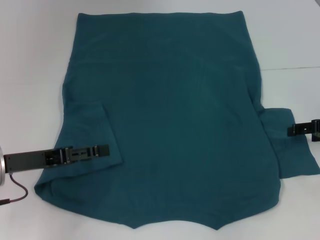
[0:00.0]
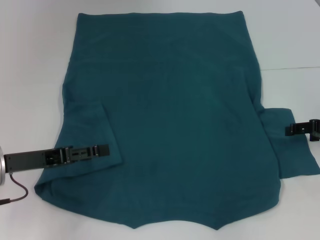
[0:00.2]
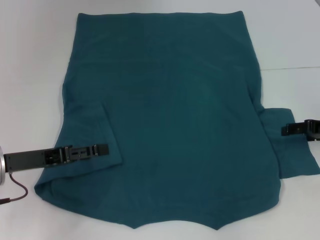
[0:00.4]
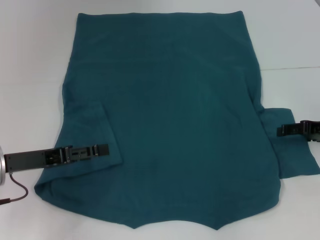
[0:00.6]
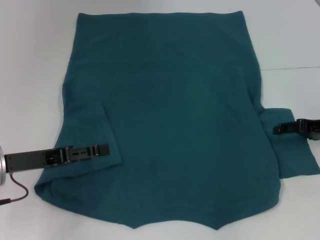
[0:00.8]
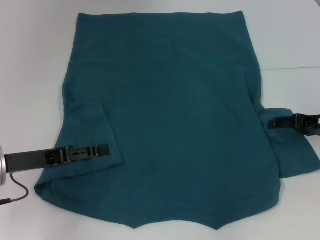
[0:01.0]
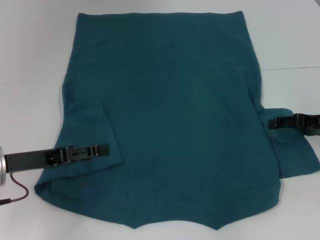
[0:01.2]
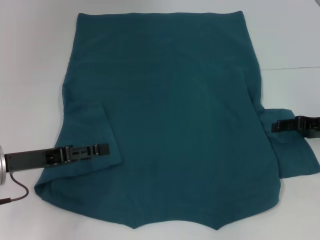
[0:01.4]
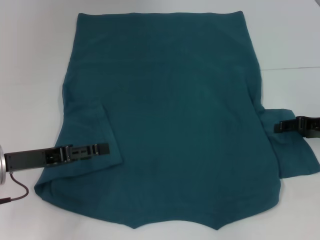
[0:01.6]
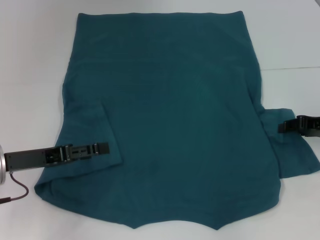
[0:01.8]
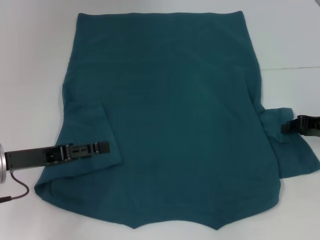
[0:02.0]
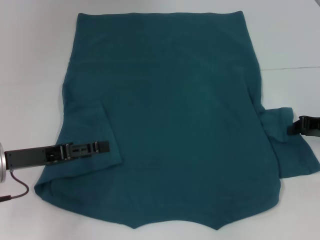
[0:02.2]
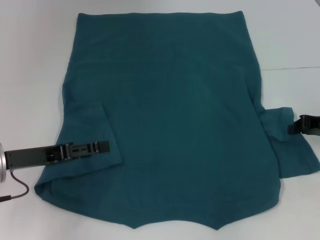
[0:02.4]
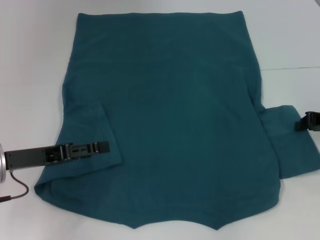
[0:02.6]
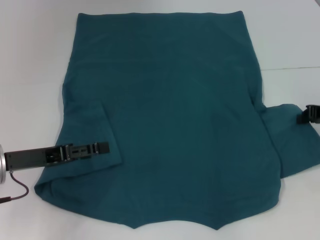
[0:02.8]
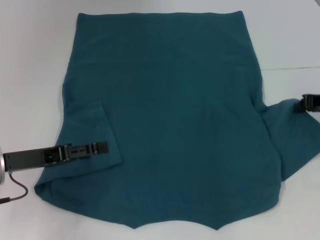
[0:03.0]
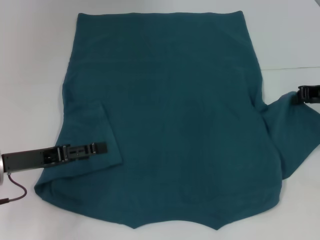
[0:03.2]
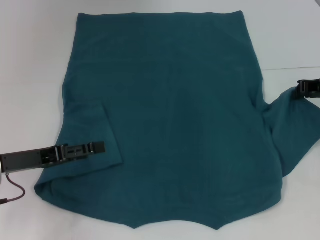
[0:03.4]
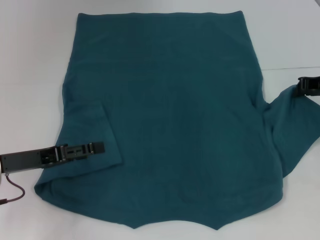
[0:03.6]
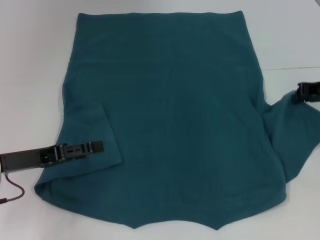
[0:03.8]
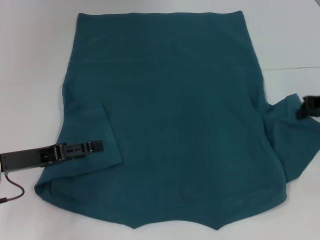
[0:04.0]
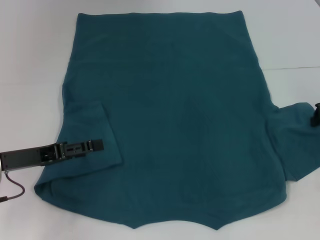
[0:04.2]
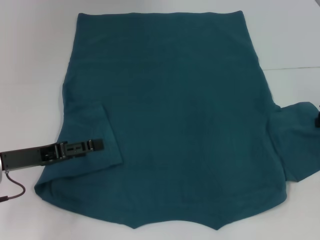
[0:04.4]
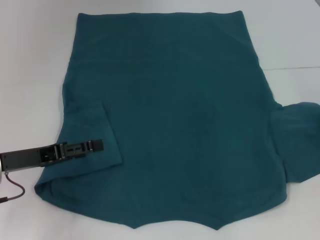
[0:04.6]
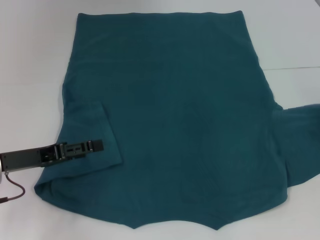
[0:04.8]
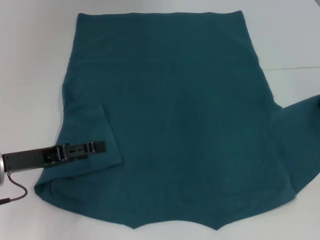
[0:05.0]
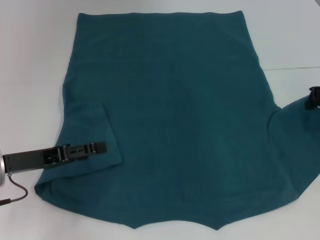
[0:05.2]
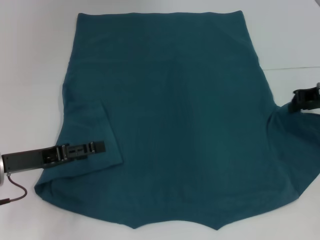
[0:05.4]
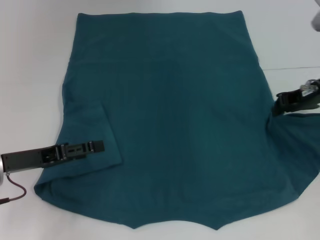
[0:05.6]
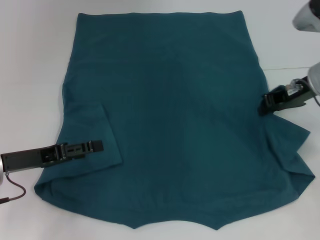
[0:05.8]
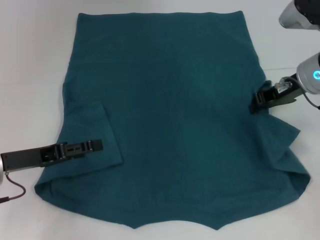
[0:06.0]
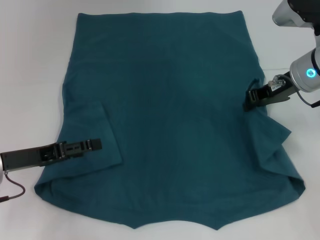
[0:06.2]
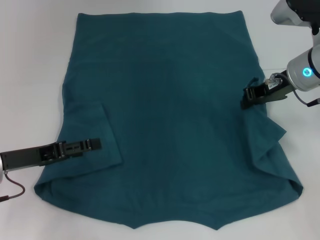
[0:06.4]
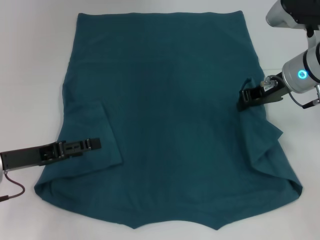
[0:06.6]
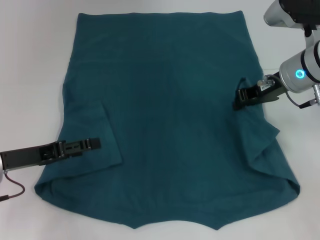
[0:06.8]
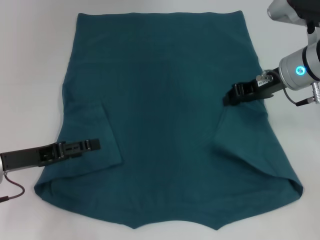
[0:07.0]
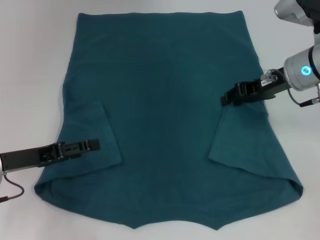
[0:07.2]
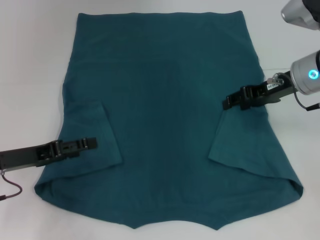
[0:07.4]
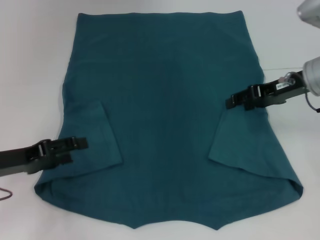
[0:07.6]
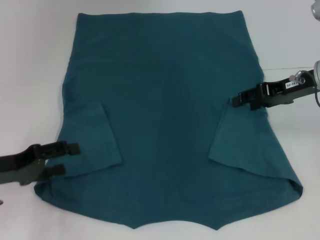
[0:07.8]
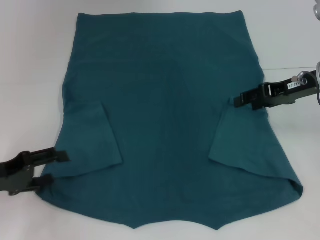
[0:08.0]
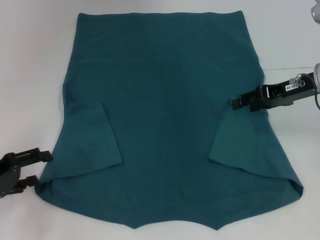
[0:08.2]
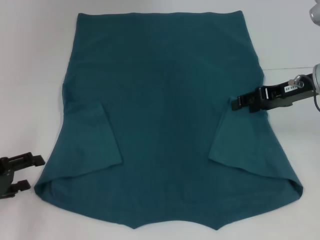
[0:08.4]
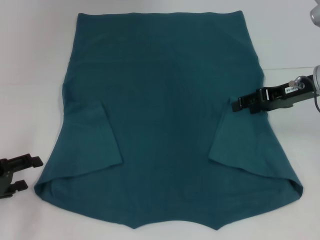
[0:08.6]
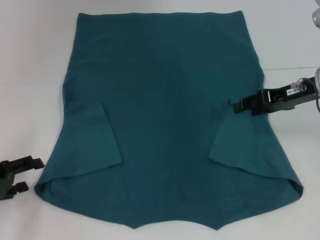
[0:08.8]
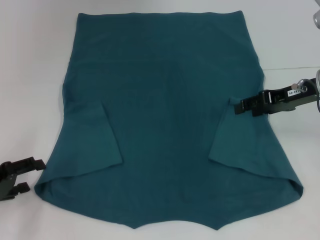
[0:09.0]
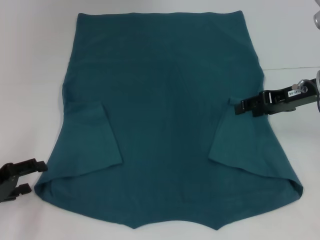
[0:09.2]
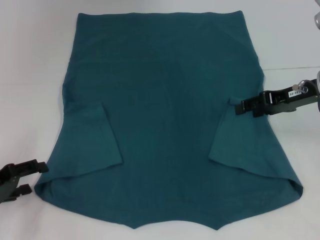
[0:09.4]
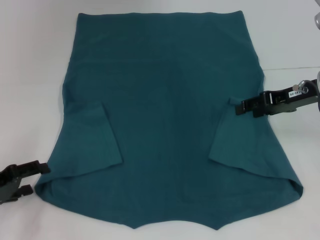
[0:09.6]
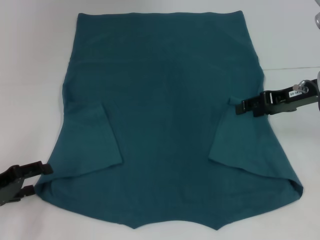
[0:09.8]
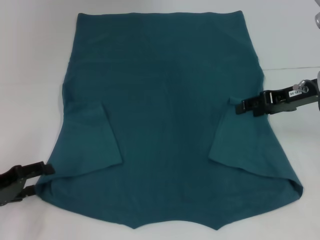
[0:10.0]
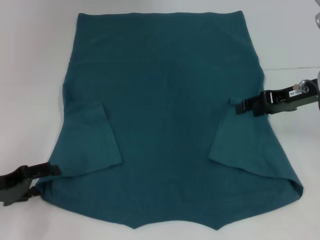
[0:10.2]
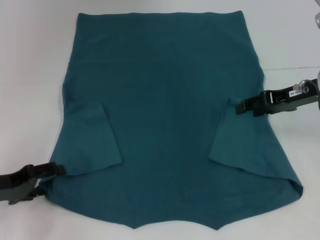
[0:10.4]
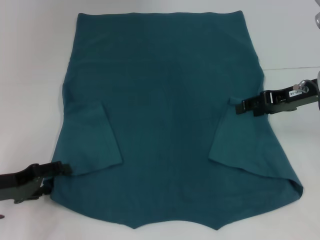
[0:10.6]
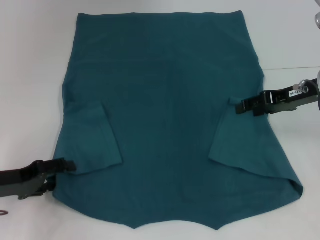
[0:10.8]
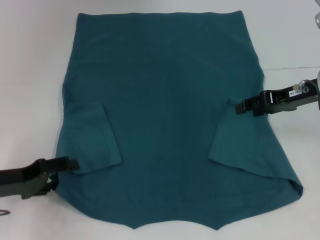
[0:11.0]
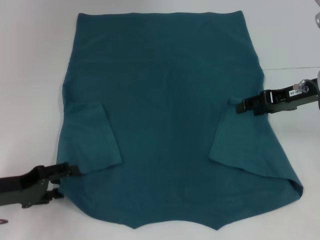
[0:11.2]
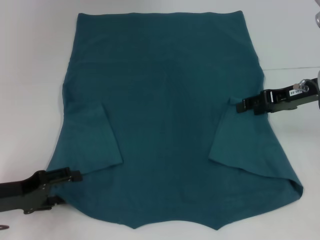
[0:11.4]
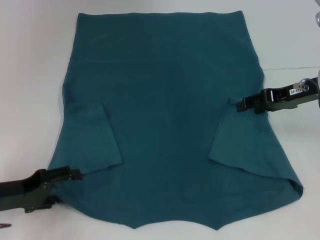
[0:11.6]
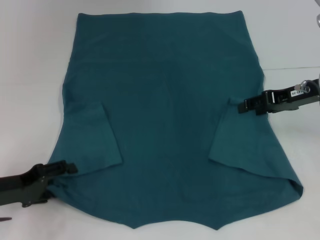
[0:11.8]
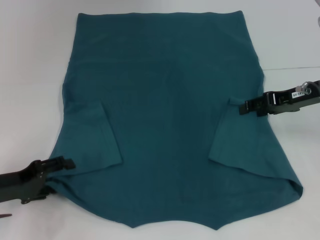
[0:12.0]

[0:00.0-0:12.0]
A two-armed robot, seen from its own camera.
Step, 0:00.0 to 0:07.4: Fold the bottom right sleeve to the right.
0:00.0 to 0:01.6: The grippers stay close to where they were, moving slightly.
0:01.6 to 0:03.0: The right gripper closes its fingers.
0:03.0 to 0:04.4: The grippers make only small movements.
0:04.4 to 0:06.0: The right gripper travels to the left by roughly 10 cm.
0:06.0 to 0:07.6: The right gripper opens up.
0:07.6 to 0:09.0: The left gripper heads to the left, covering some 5 cm.
0:09.0 to 0:12.0: The grippers make only small movements.

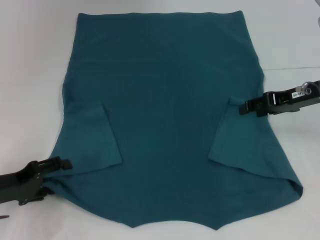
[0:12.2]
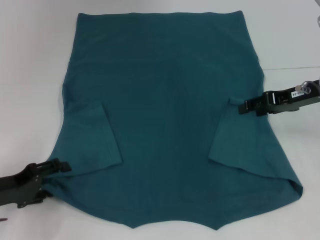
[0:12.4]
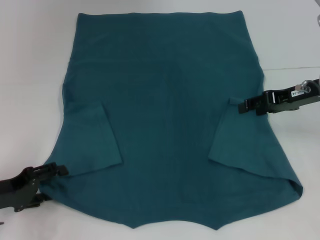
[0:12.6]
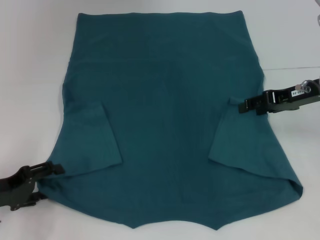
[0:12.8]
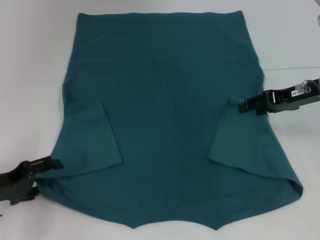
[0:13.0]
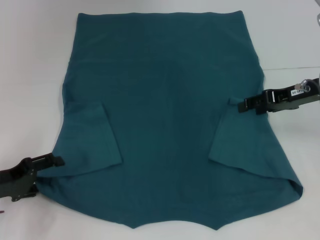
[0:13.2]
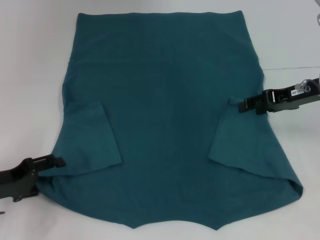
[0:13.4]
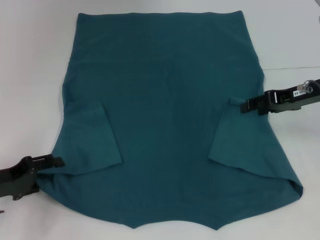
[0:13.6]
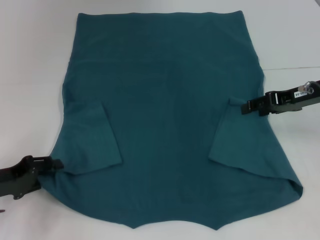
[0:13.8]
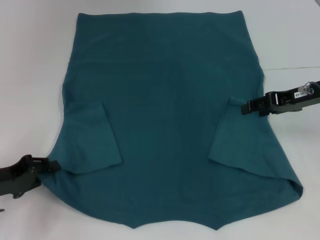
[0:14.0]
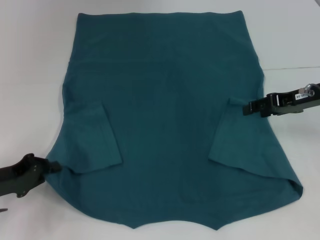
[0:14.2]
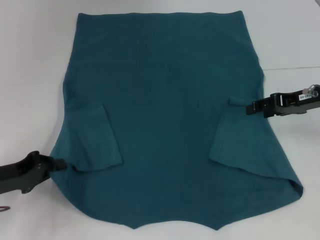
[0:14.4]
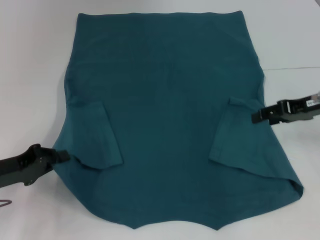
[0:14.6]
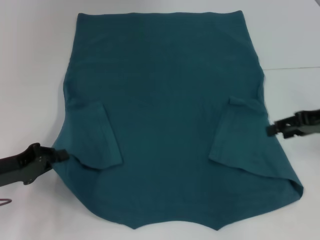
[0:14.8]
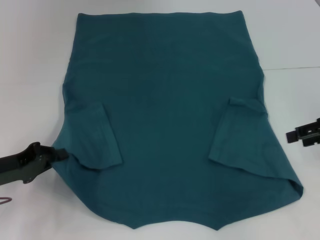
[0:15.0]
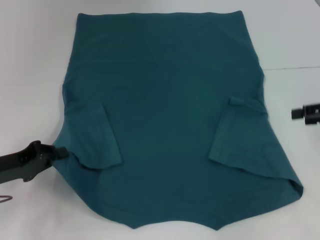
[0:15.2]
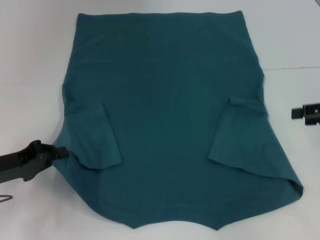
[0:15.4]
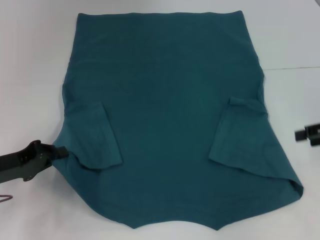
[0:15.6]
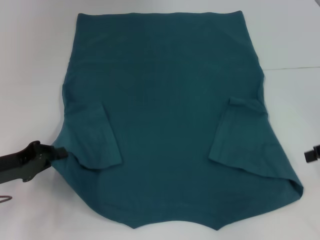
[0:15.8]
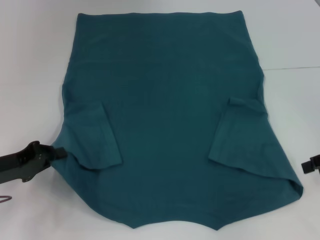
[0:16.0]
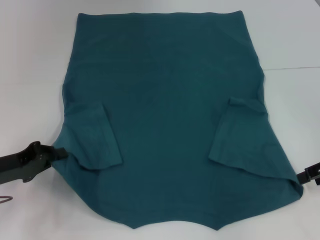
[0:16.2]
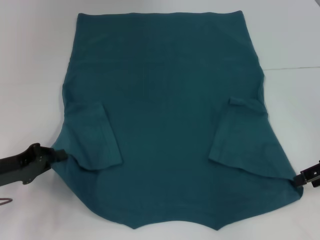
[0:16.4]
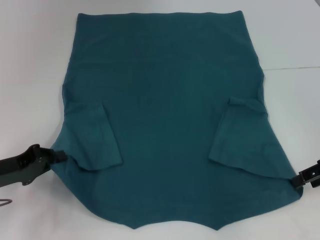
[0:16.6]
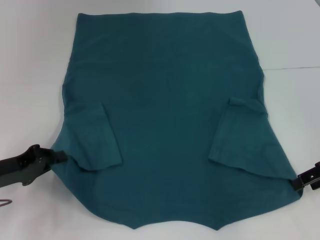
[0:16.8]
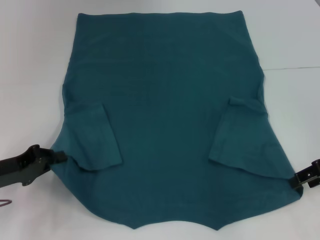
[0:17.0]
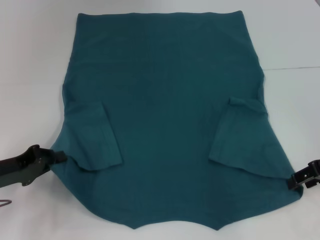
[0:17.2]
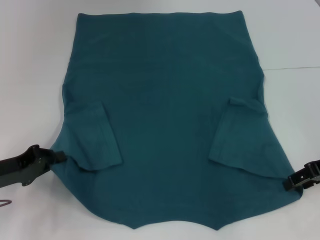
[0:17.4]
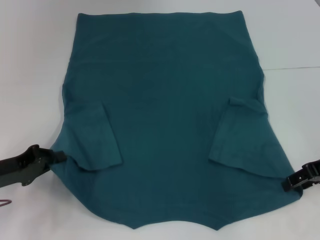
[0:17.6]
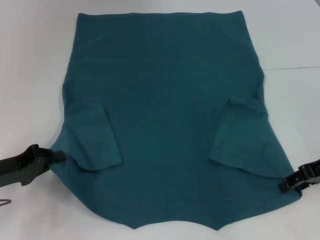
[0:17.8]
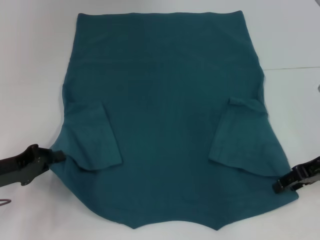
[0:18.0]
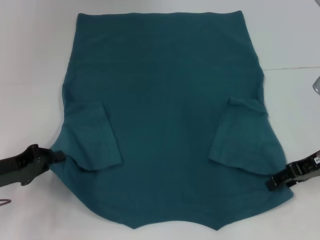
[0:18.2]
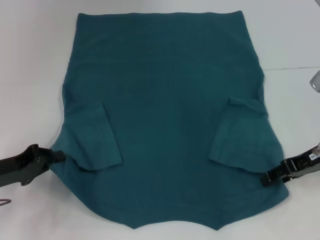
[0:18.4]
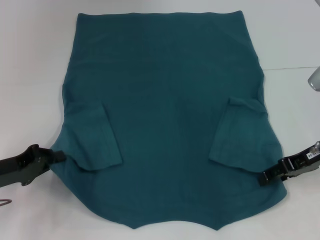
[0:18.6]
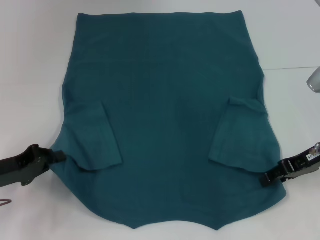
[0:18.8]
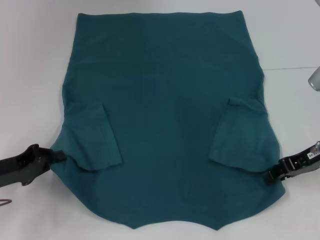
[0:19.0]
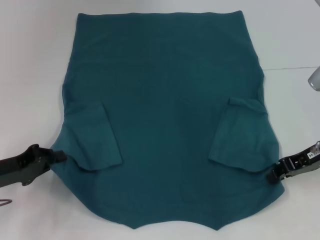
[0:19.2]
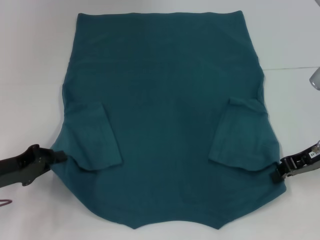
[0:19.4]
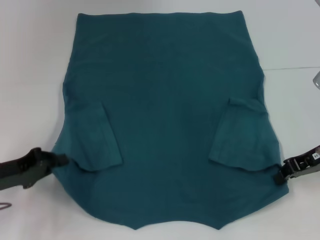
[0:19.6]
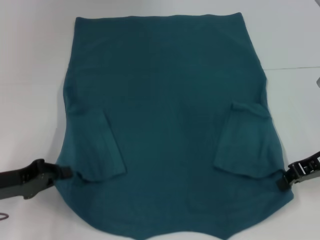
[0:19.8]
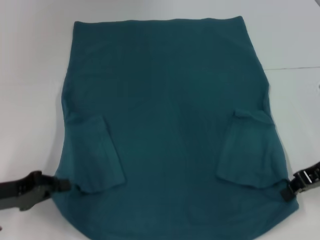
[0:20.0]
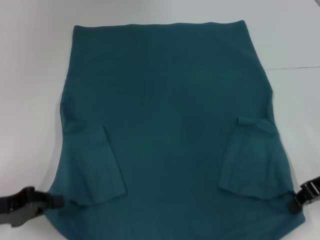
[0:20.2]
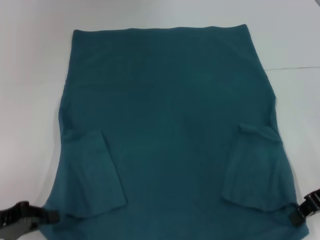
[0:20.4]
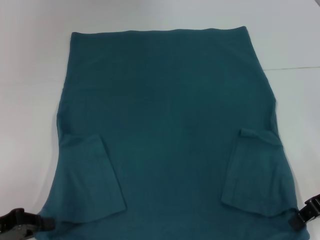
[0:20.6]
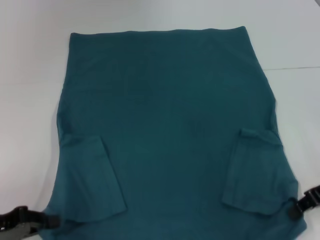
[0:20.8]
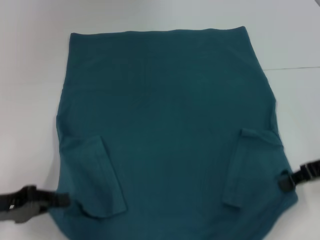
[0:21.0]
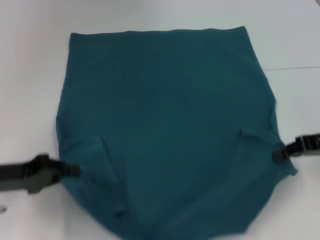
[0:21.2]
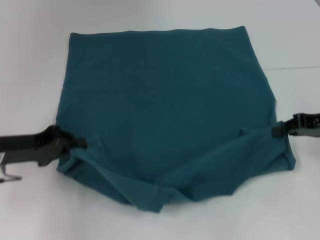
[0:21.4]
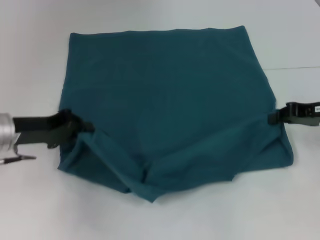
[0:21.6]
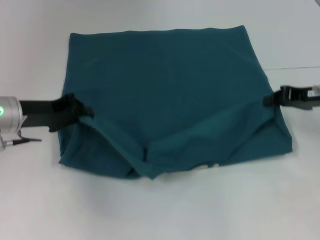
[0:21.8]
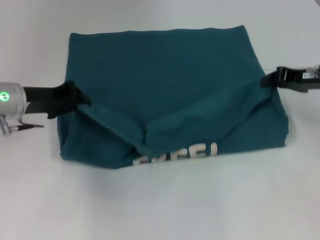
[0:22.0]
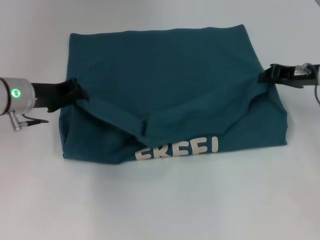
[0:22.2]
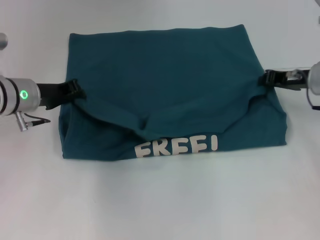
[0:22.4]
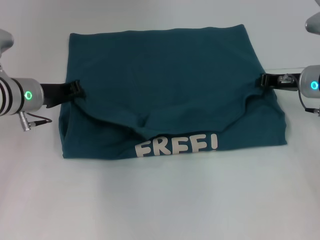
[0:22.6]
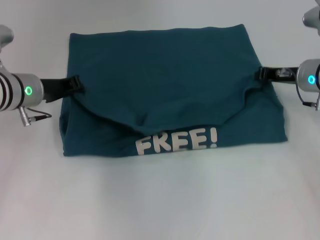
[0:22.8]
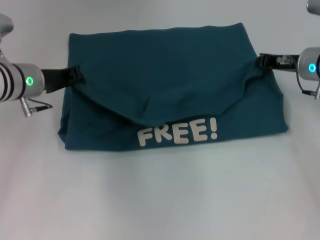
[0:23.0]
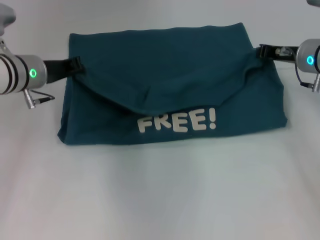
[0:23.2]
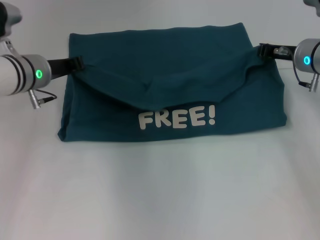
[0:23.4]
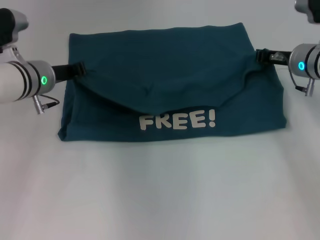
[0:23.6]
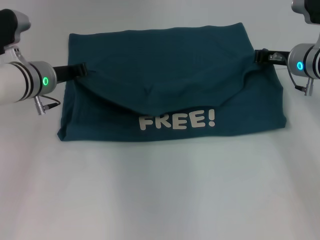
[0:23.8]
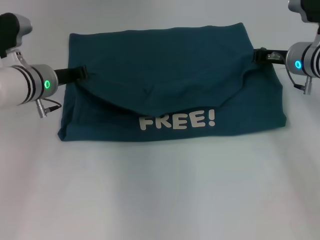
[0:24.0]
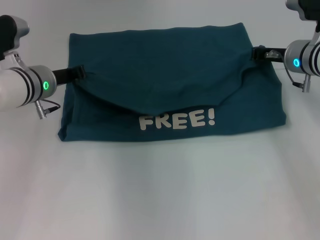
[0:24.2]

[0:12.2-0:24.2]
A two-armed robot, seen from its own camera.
Step, 0:12.2 to 0:14.6: Grab the bottom left corner with your left hand.
Step, 0:14.8 to 0:19.4: Grab the bottom right corner with your right hand.
0:12.2 to 0:13.8: Both grippers stay about where they are.
0:13.8 to 0:15.2: The left gripper closes up; the right gripper travels to the right and backward by some 10 cm.
0:16.6 to 0:18.2: The right gripper moves roughly 5 cm.
0:18.2 to 0:19.8: The right gripper closes up.
0:21.2 to 0:22.6: The left gripper travels forward and to the right by roughly 15 cm, while the right gripper is displaced forward and to the left by roughly 10 cm.
